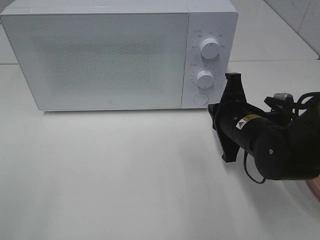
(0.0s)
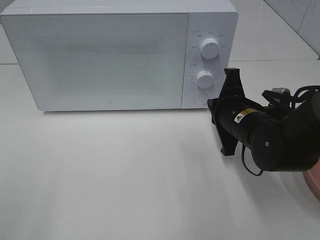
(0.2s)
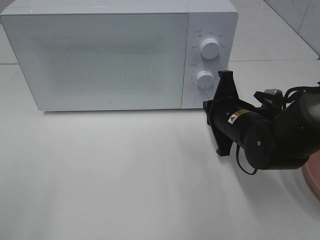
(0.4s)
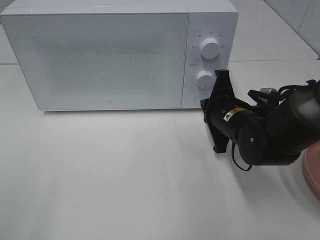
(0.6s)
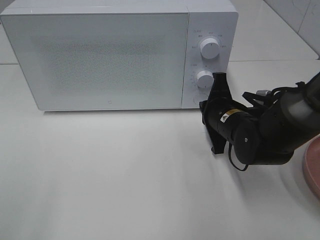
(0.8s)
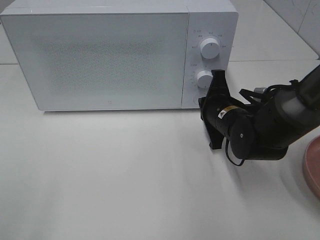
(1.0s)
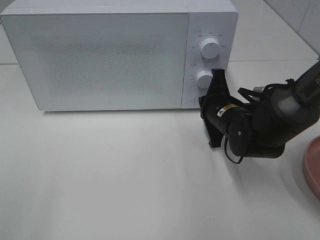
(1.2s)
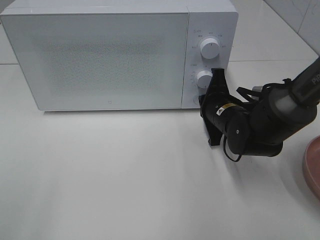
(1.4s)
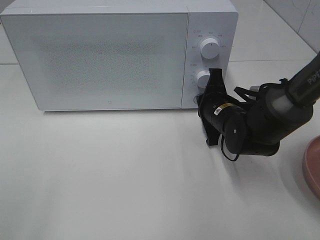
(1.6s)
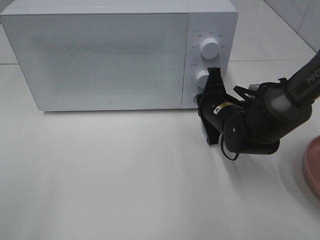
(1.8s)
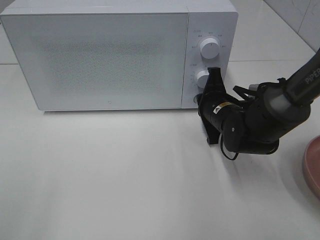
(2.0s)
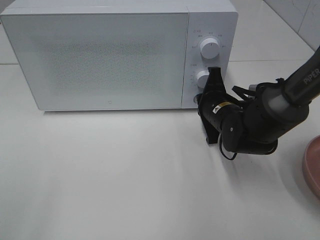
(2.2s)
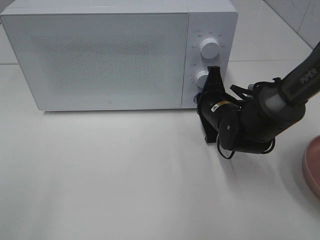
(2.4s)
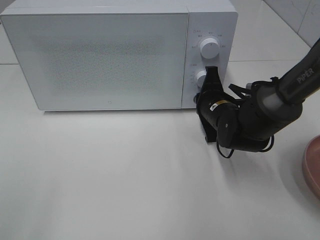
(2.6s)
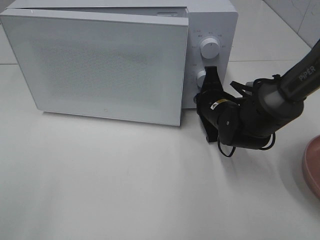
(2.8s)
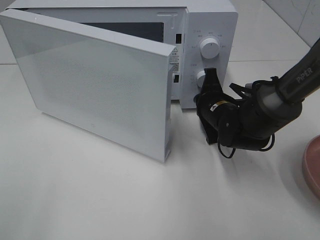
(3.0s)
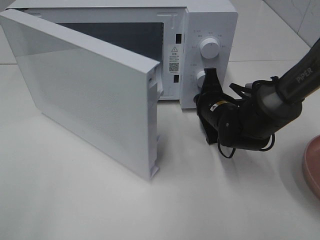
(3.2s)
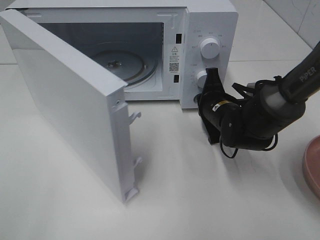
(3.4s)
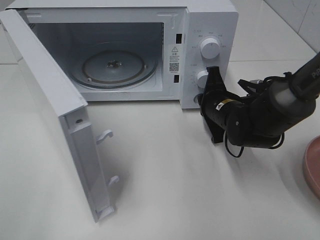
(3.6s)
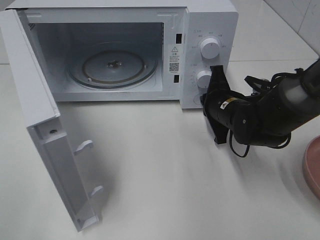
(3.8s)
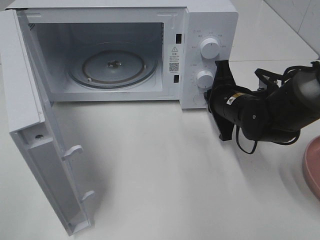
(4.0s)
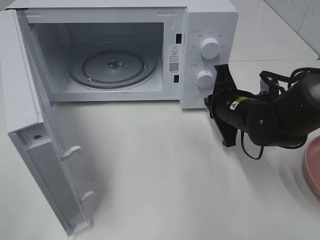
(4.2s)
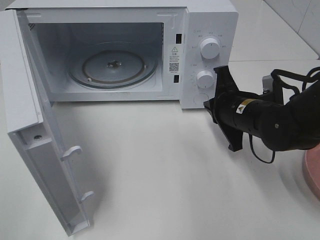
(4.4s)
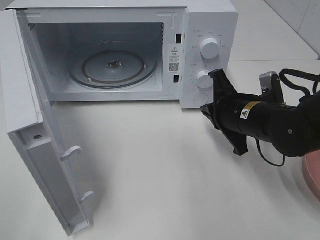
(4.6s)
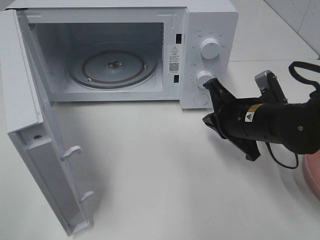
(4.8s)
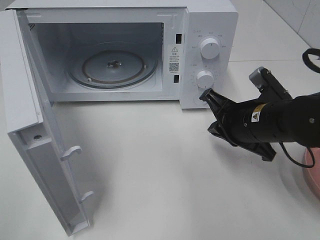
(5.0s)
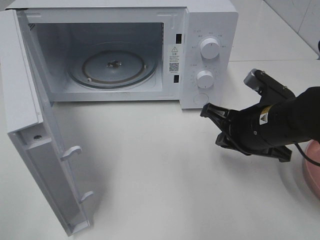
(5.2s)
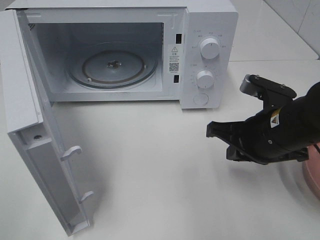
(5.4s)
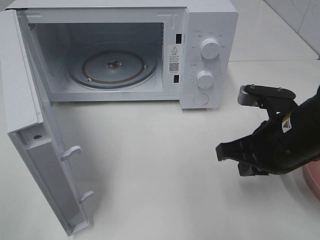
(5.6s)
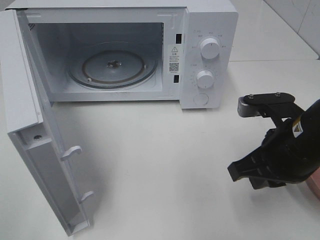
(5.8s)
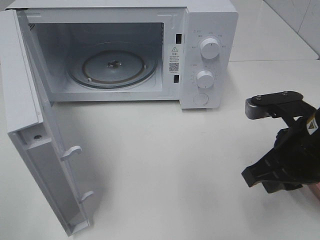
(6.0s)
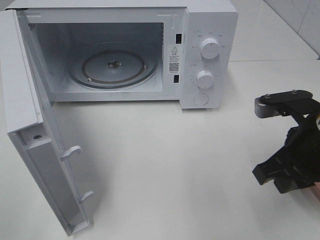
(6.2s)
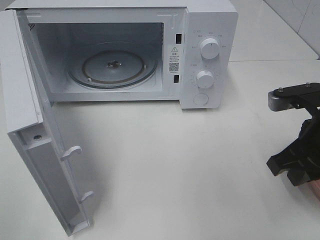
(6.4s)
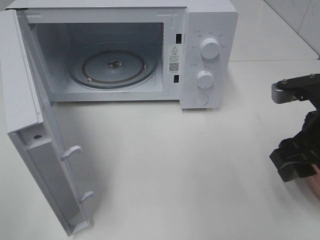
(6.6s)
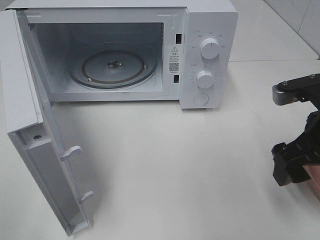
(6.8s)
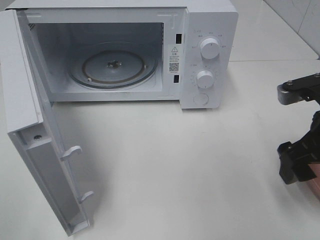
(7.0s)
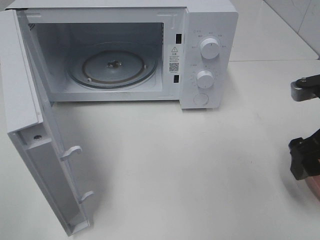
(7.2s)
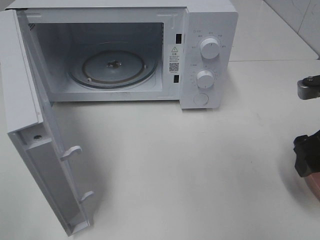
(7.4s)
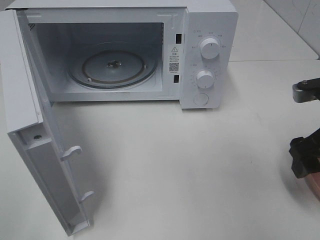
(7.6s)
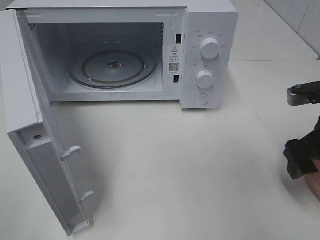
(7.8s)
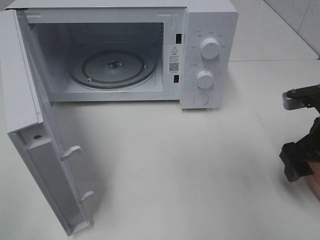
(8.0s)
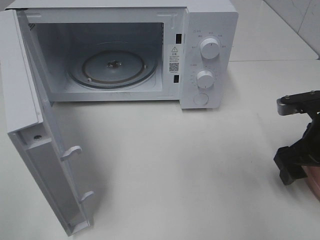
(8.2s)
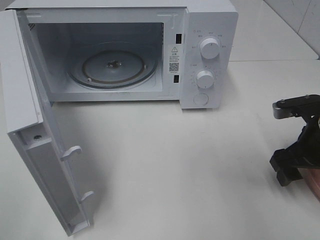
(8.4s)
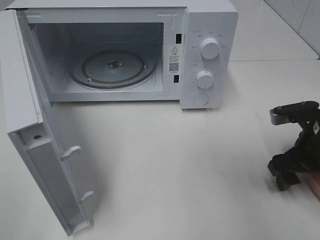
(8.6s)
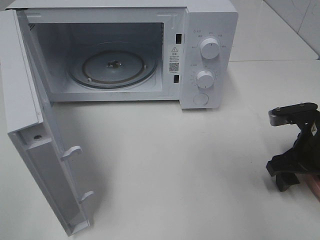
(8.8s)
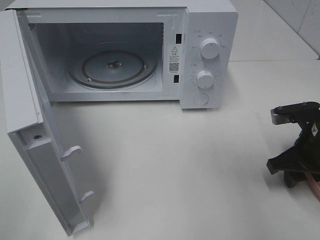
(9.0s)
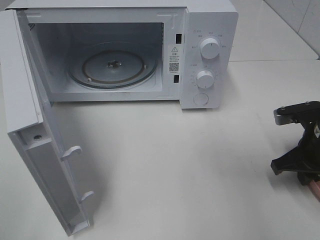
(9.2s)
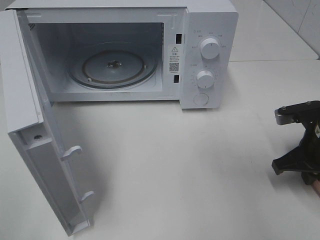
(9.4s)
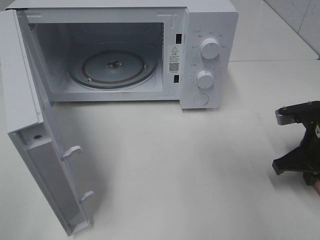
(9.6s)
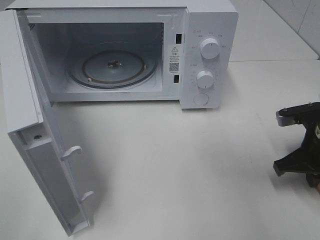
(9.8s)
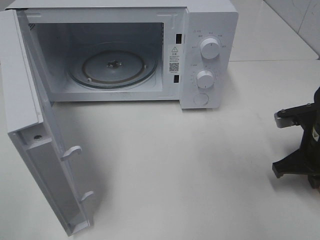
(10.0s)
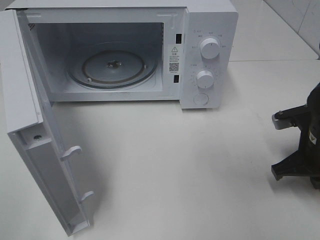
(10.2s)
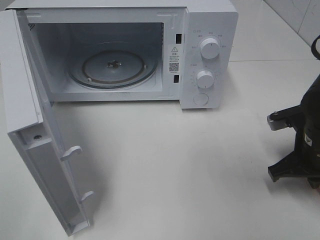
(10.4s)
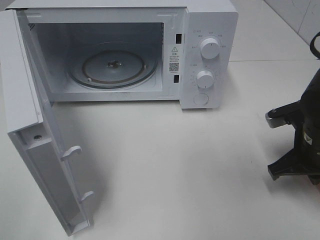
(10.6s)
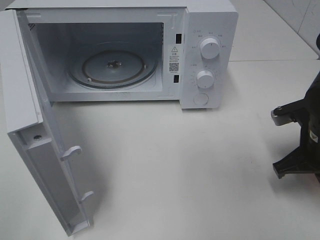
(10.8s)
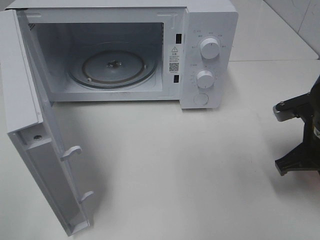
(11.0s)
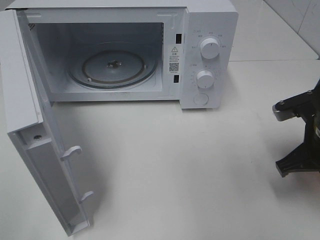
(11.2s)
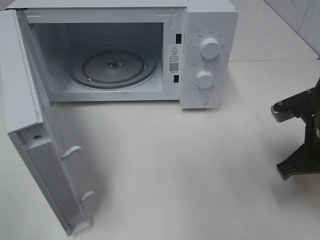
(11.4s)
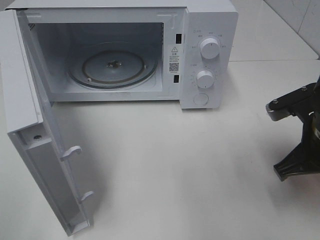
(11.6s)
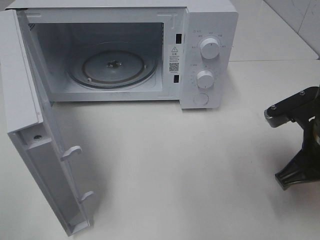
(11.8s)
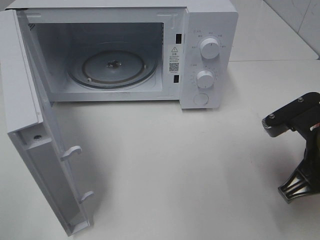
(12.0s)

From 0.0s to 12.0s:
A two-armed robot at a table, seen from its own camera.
Task of the whole recording: Heat the burger.
Step, from 0.0s to 4.2s: Right hand: press the switch.
Step, from 4.4s to 10.2s: Right hand: grab the plate with the hamburger.
From 0.0s to 1.6s: The right gripper travels forward by some 5 cm.
From 1.6s to 3.0s: The grippers make only small movements.
From 3.0s to 4.4s: The right gripper shifts roughly 5 cm backward.
From 4.4s to 6.0s: The right gripper shifts approximately 10 cm backward and upward.
From 6.0s to 7.6s: The right gripper travels to the right by some 5 cm, and opens.
From 7.6s to 9.0s: The right gripper is displaced downward by approximately 5 cm.
From 9.0s to 10.4s: The right gripper closes.
From 10.4s to 12.0s: The right gripper heads backward and upward, covering approximately 10 cm.

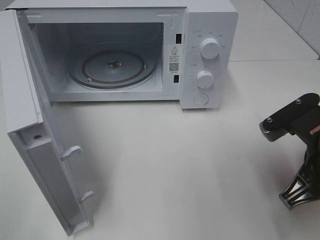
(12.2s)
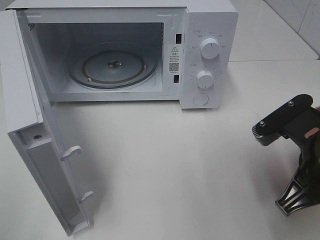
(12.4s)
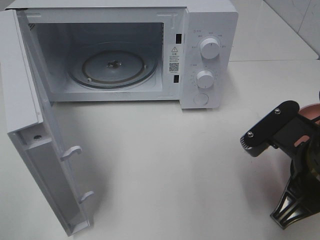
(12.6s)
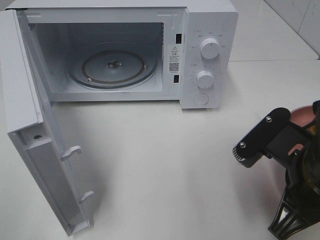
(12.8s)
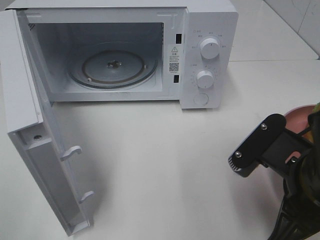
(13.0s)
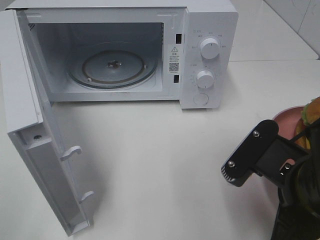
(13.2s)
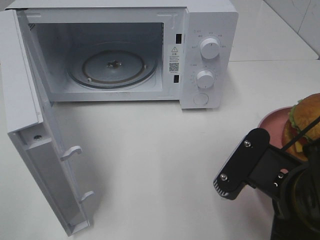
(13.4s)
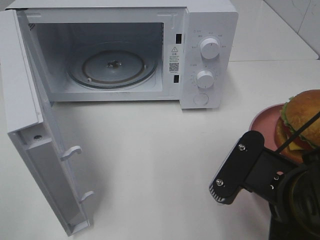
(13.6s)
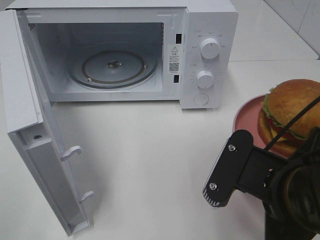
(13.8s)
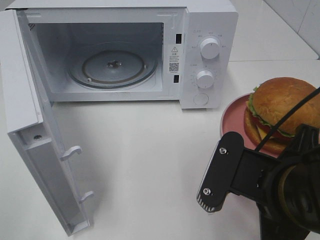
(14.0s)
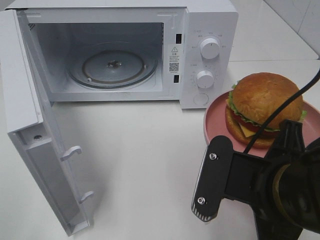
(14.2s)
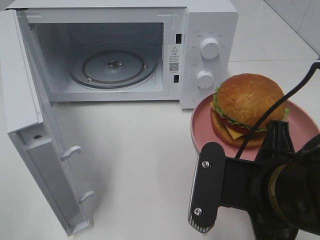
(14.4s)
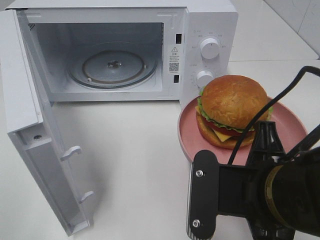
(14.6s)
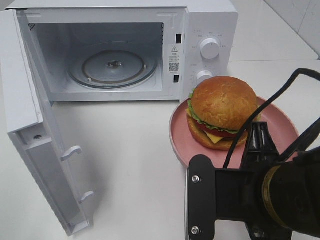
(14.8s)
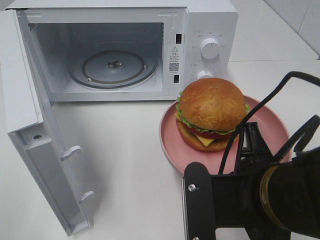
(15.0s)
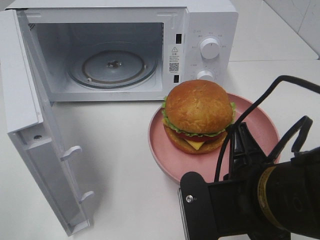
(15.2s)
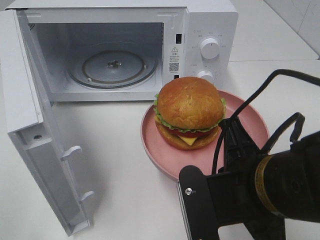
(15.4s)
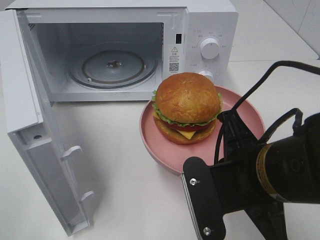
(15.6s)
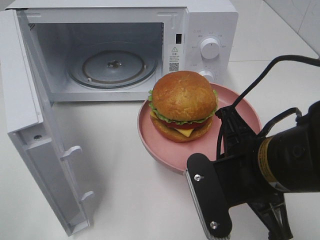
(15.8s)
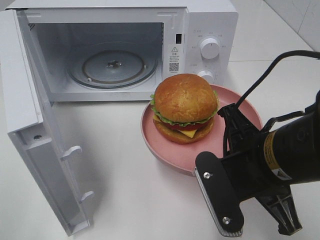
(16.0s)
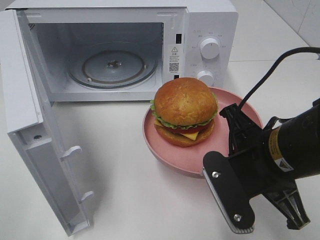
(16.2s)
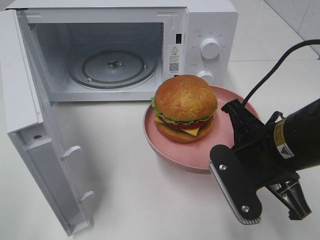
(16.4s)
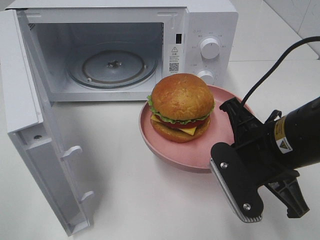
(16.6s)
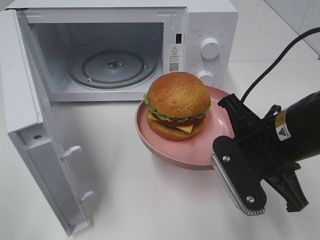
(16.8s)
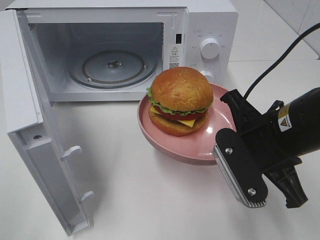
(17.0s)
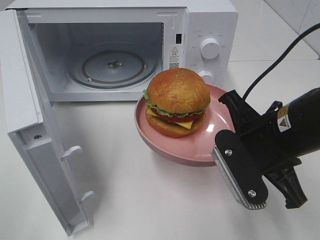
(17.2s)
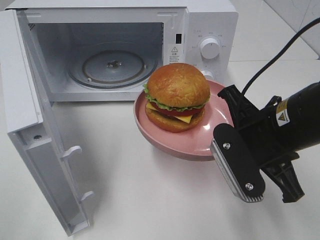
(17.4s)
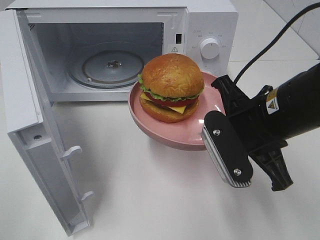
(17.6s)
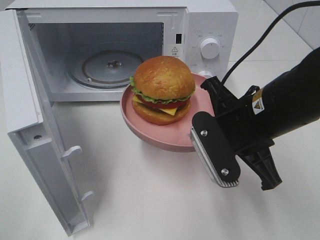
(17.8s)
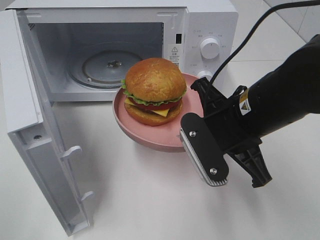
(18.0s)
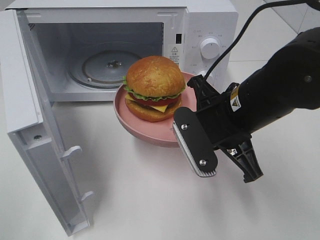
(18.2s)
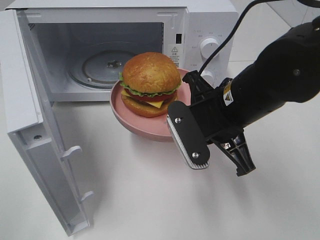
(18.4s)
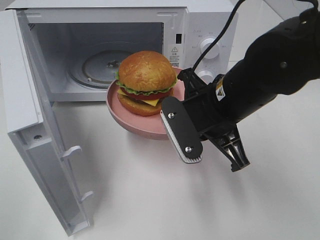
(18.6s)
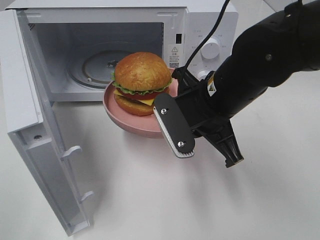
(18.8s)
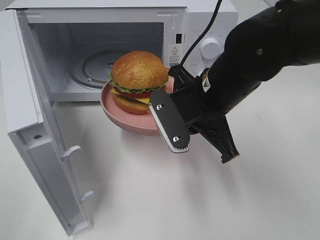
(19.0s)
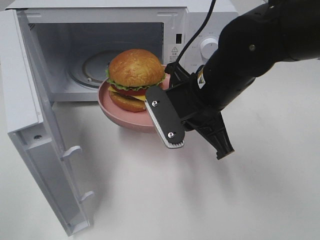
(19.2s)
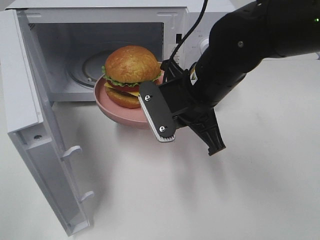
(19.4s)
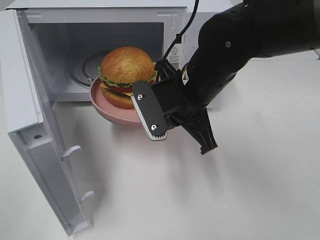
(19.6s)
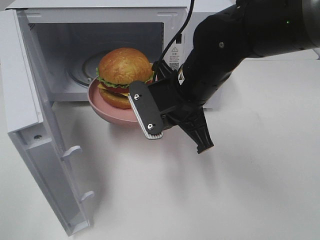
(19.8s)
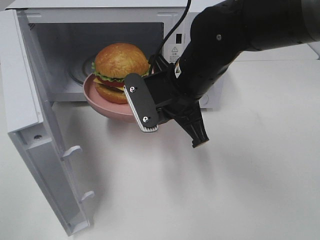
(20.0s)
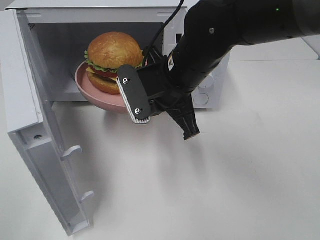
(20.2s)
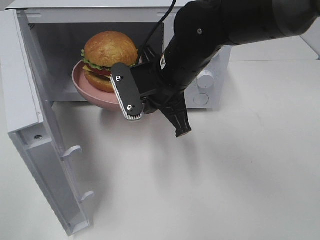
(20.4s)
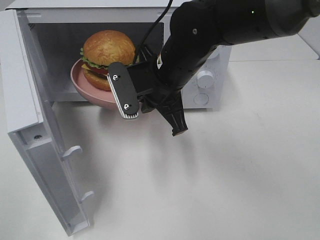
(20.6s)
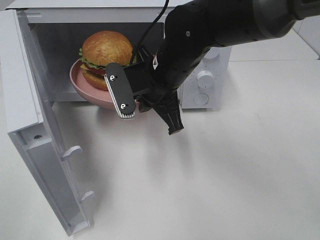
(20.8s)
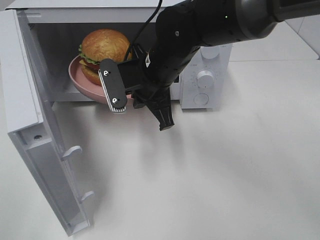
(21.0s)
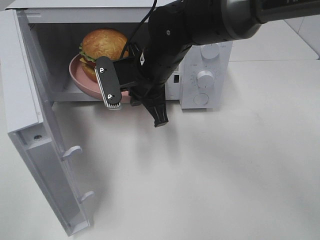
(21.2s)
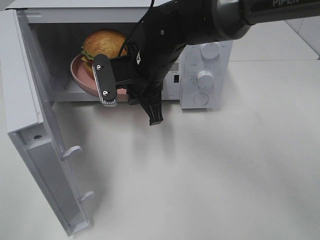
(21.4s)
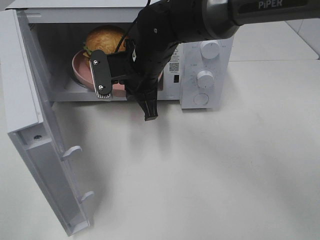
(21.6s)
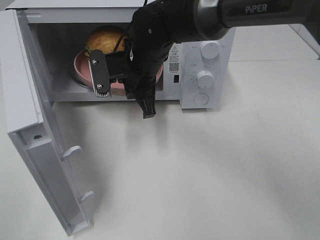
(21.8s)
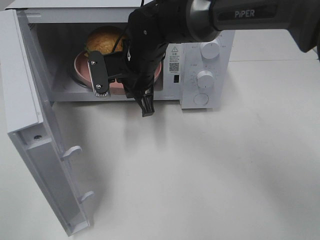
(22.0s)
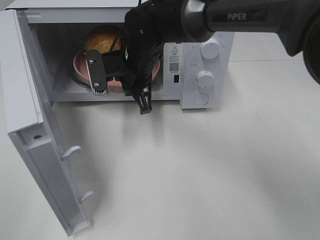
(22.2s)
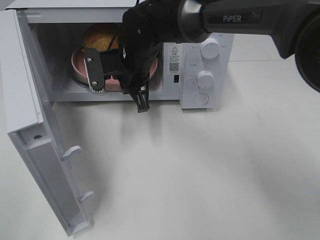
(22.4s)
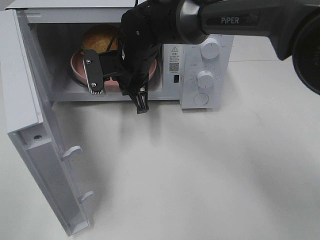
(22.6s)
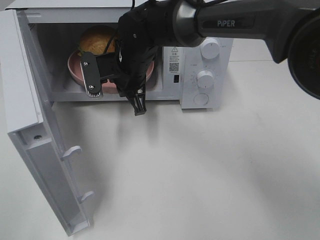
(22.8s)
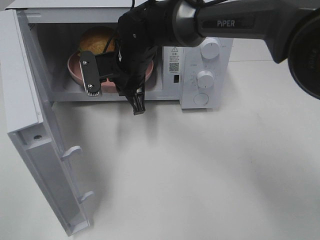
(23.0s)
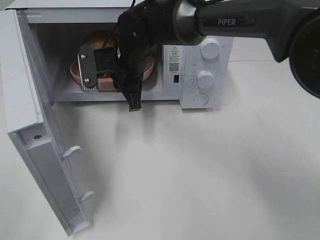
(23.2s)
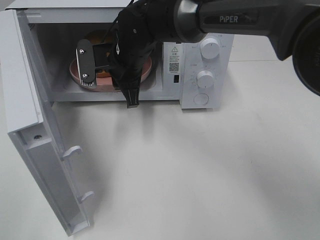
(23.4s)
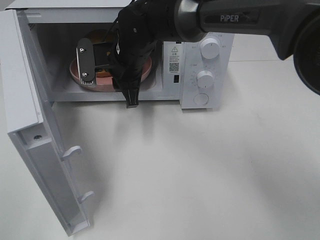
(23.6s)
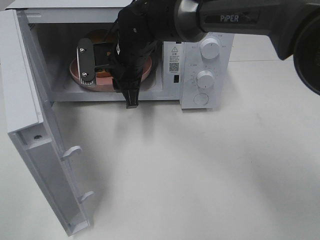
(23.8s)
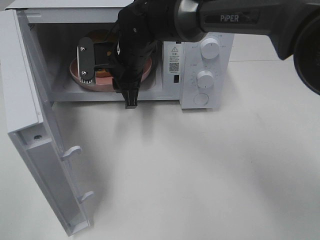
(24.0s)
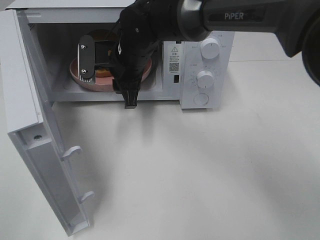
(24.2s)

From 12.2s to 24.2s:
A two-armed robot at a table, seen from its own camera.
Task of the whole recording: Heat the burger.
Step, from 12.2s to 24.0s: Right hand: place the plate in the microwave.
From 12.2s to 13.8s: The right gripper shifts some 10 cm to the left and backward.
From 15.2s to 16.6s: The right gripper moves forward, some 5 cm.
From 16.6s to 18.2s: The right gripper changes place by about 5 cm.
From 18.2s to 19.8s: The right gripper heads to the left and forward, covering approximately 10 cm.
From 19.8s to 21.2s: The right gripper is displaced forward and to the left by about 10 cm.
From 21.2s to 22.6s: The right gripper ends up roughly 5 cm from where it was.
From 22.6s to 24.2s: The right gripper opens.
